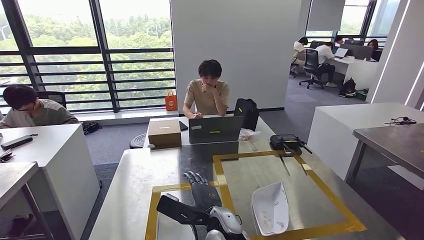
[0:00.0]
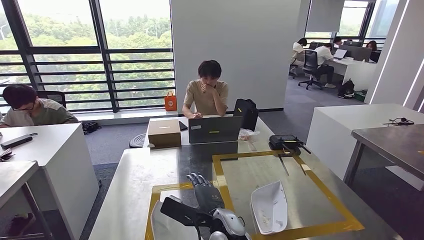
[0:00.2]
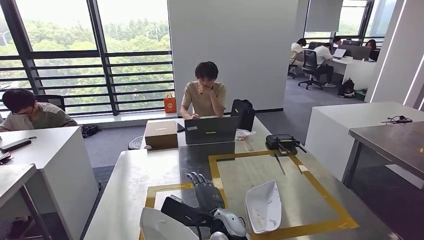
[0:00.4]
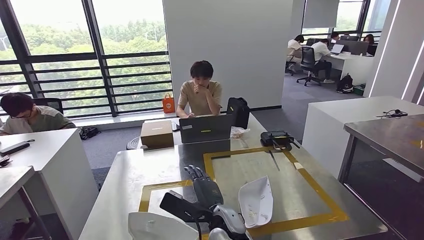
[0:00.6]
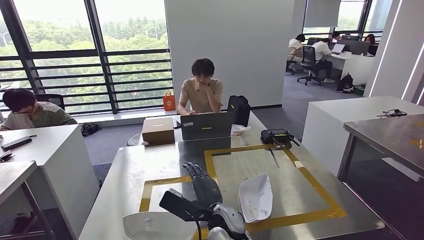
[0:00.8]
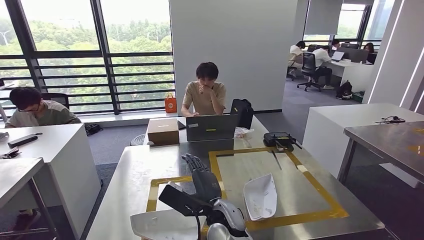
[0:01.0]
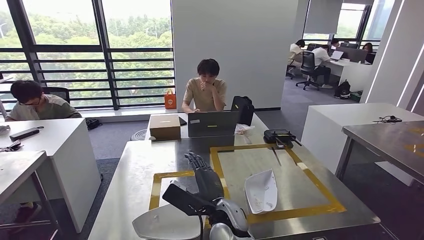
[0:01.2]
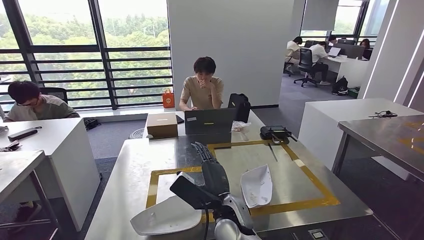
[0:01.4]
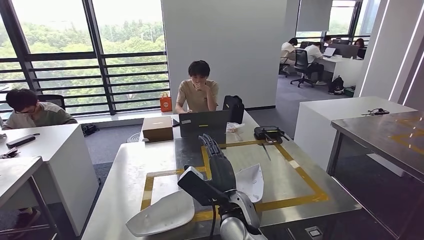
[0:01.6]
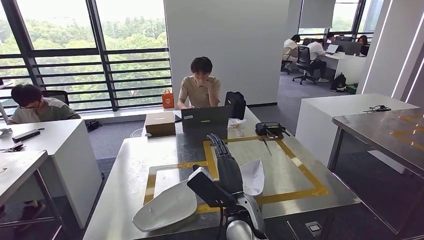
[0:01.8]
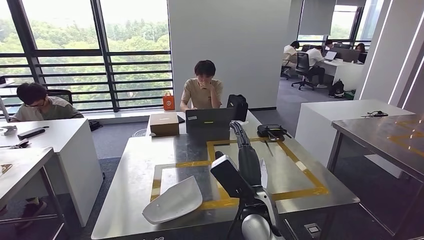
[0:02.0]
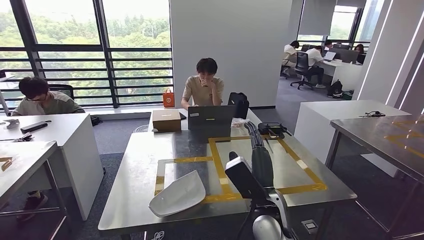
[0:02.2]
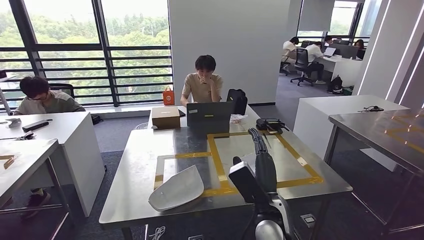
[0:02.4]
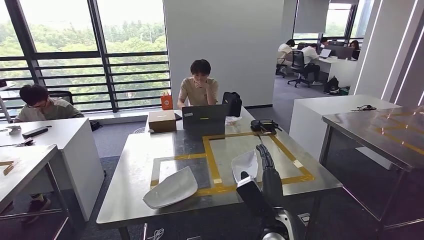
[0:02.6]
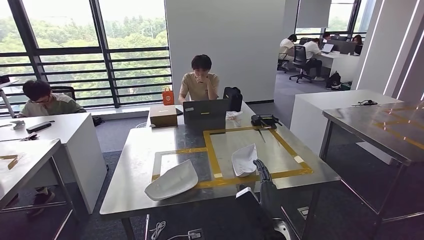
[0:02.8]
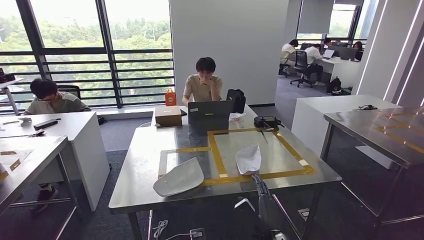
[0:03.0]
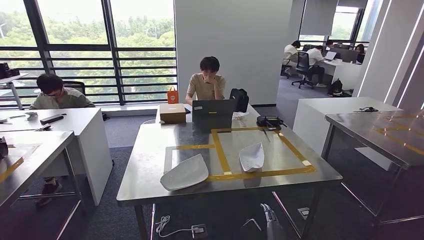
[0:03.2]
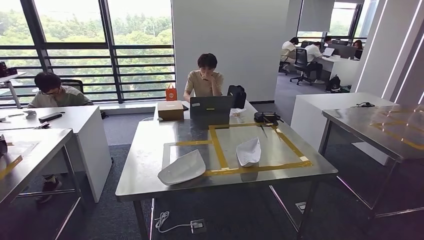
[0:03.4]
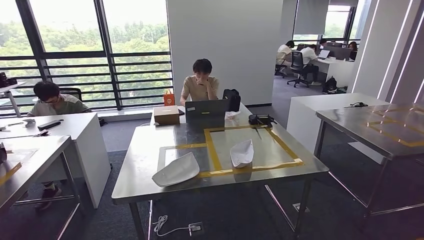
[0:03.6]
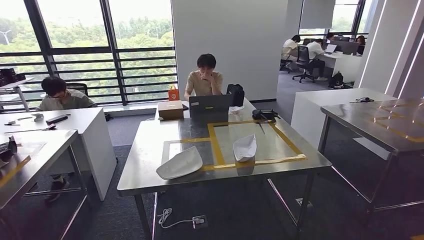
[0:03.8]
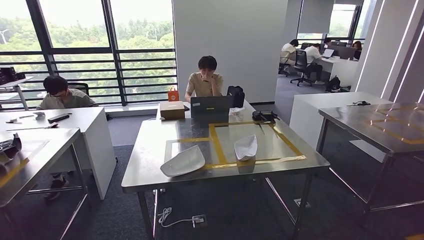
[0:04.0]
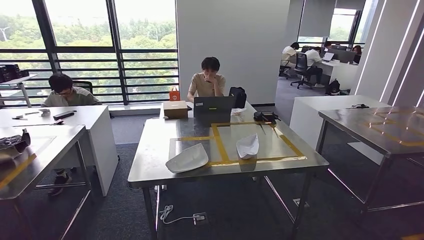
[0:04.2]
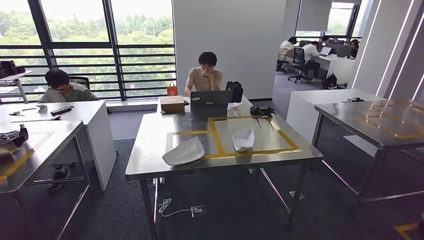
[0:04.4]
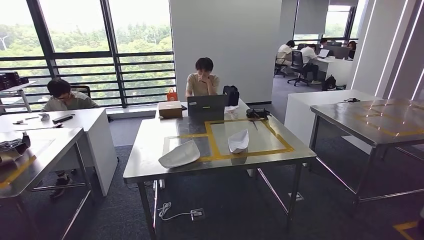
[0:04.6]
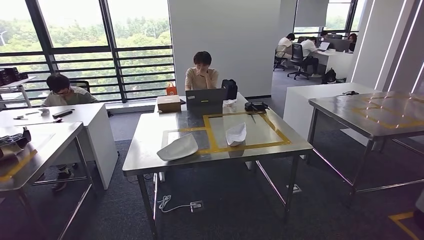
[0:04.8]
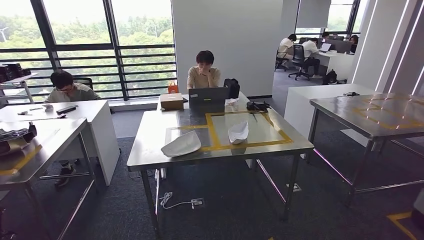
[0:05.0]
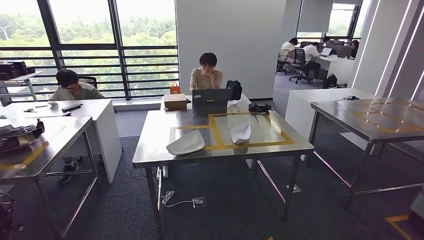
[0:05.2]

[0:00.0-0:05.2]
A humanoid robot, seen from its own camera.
Step, 0:00.0 to 0:02.4: Insert the small component into the corresponding slot on the workbench.
Step, 0:02.6 to 0:05.2: Return to the initial position at the workbench.
